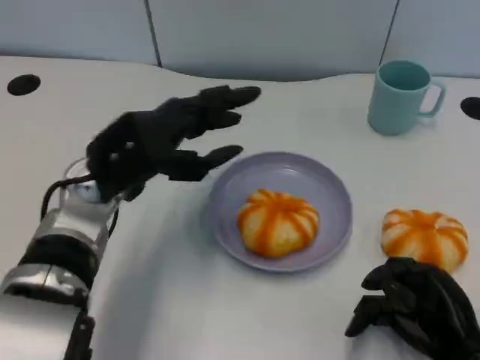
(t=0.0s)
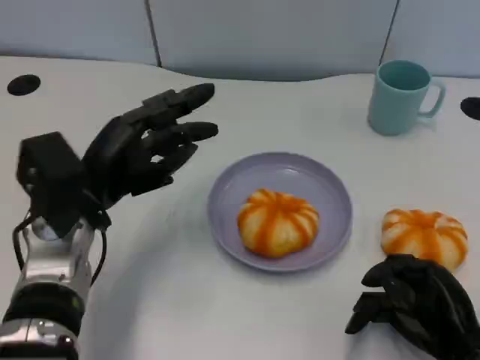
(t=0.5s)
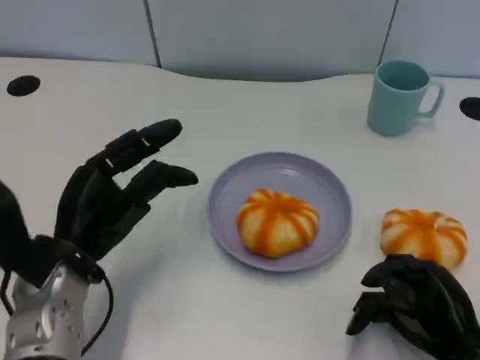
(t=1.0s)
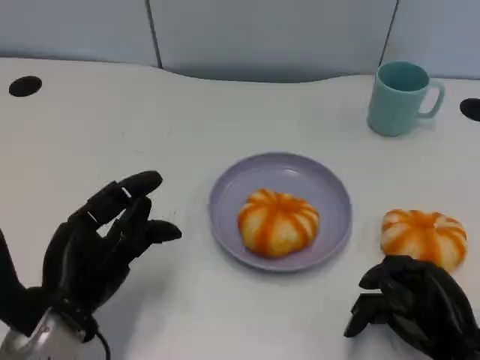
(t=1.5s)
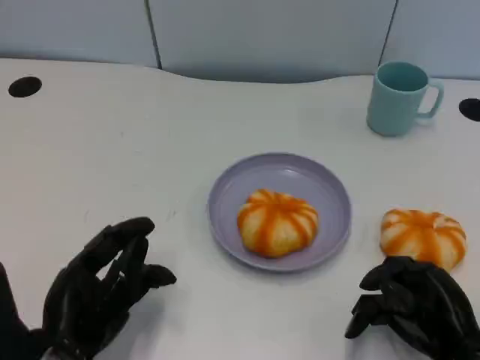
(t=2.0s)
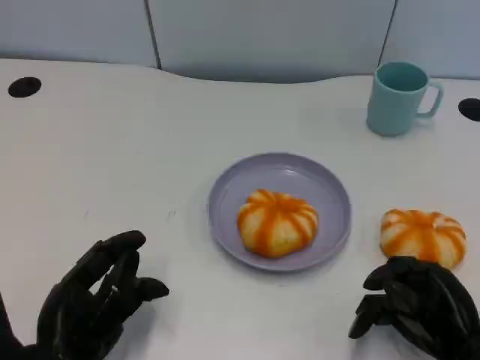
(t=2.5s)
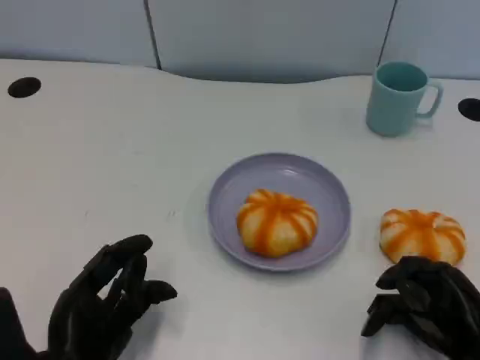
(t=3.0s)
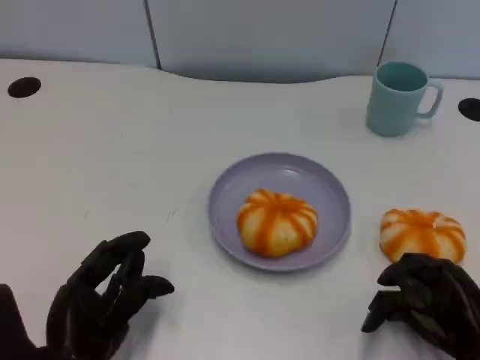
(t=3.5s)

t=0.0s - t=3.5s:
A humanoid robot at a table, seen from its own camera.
Task of the whole recording: Grasp the bread from the table and place it into the plate.
t=0.0s - t=2.0s: The left hand moves backward and downward, about 15 cm.
t=2.0s - t=3.5s: The hands move only a little.

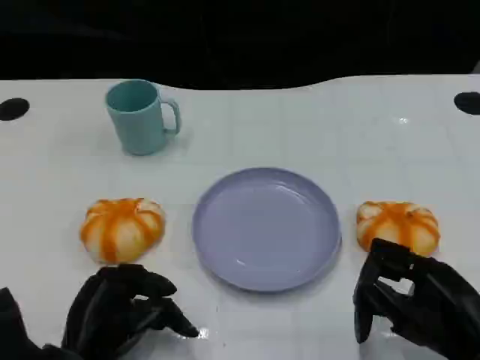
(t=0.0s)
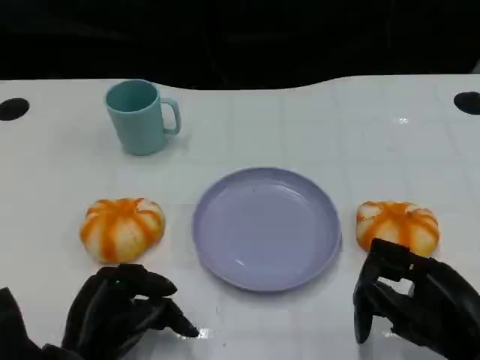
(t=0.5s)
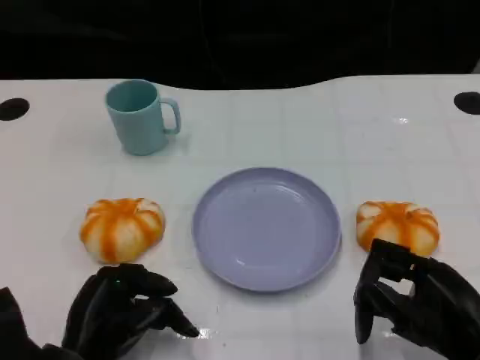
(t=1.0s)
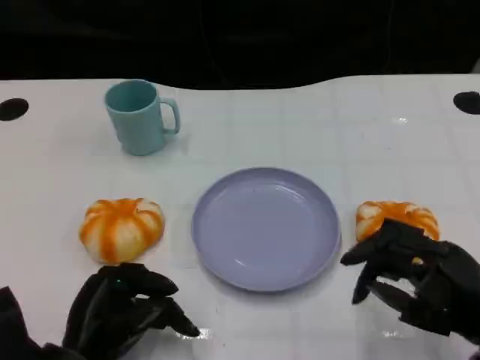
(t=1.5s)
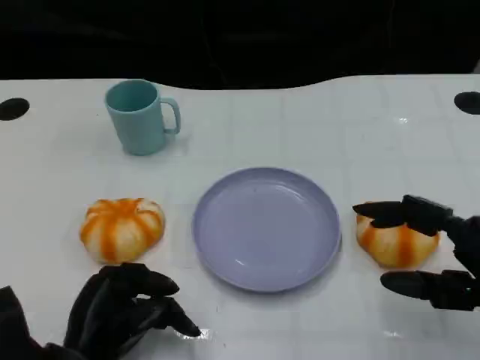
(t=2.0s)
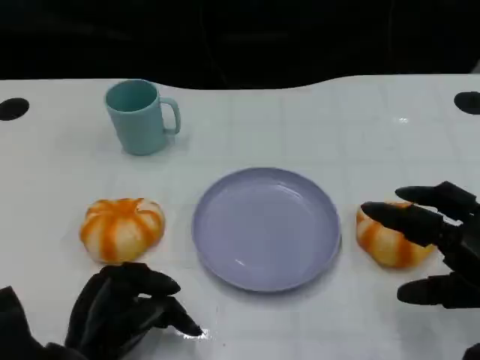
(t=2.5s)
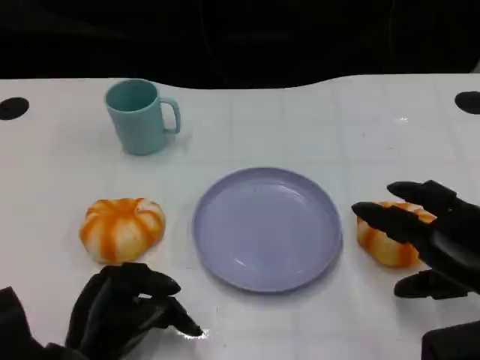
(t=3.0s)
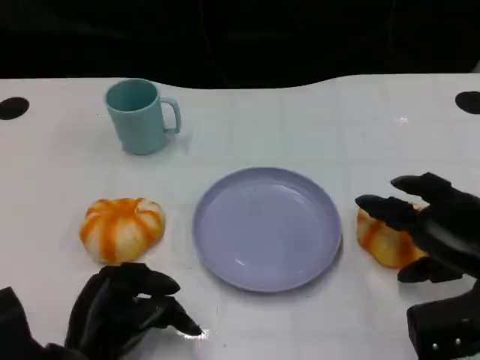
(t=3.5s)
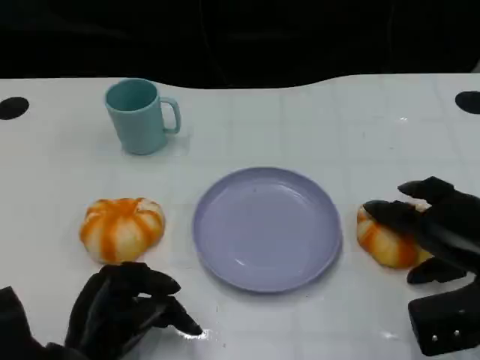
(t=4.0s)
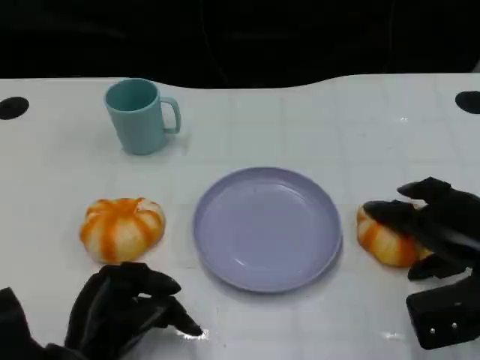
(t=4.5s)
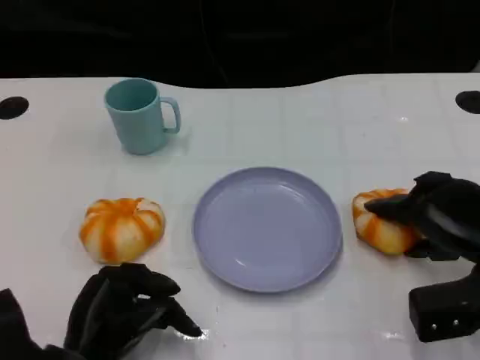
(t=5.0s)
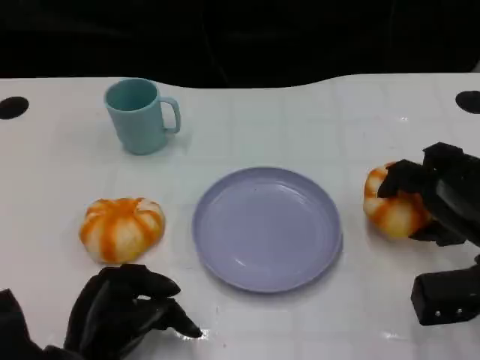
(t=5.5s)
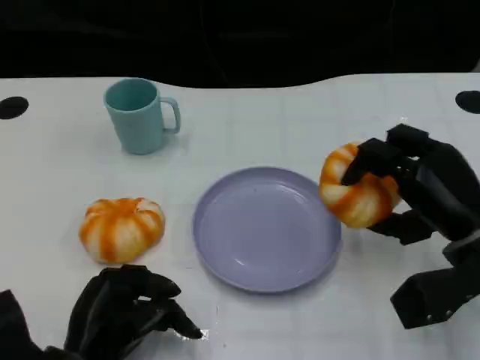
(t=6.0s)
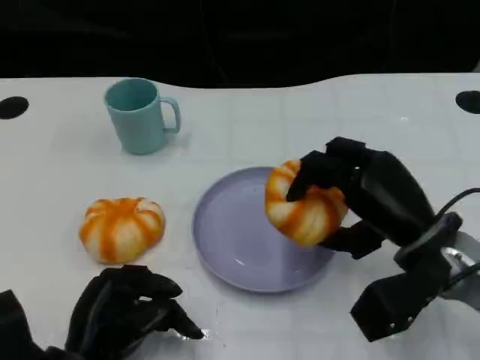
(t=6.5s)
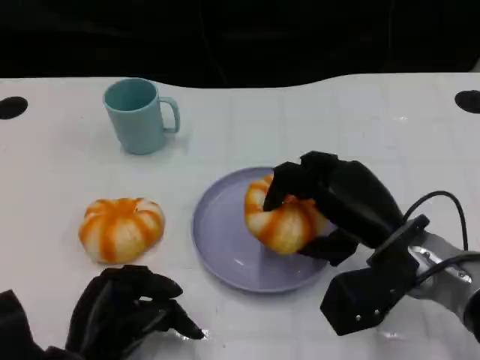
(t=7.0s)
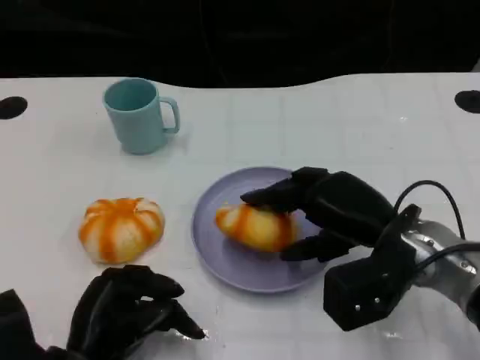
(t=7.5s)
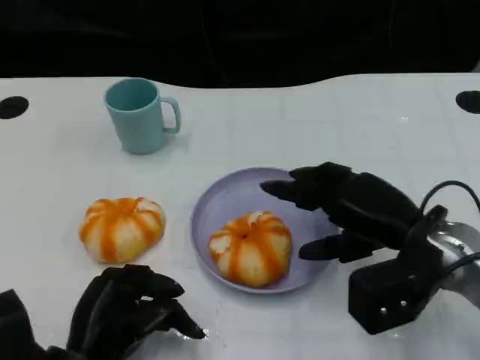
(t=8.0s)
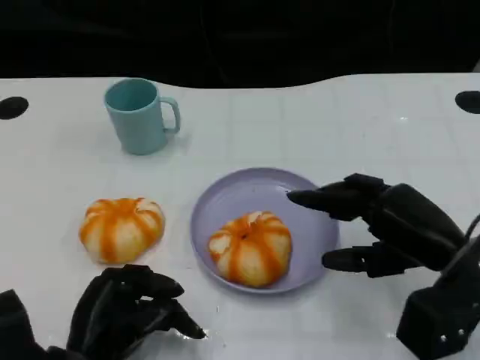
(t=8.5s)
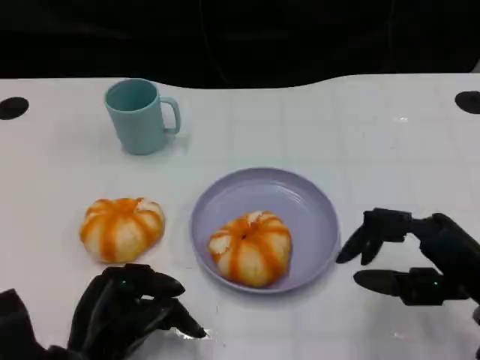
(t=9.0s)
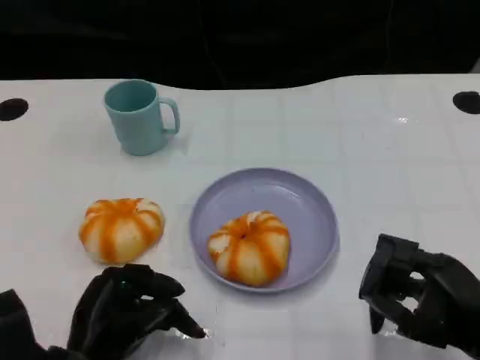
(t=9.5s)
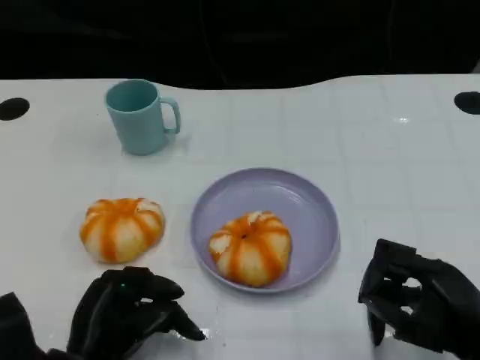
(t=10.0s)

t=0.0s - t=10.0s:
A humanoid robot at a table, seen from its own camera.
Task of the whole recording: Grasp the bread from the table and place it into the plate.
t=0.0s - t=2.0s: The right hand changes place by some 5 cm.
t=2.0s - t=4.0s: The right hand shifts approximately 5 cm forward.
t=8.0s - t=10.0s: The right hand is displaced backward and to the right by some 10 cm.

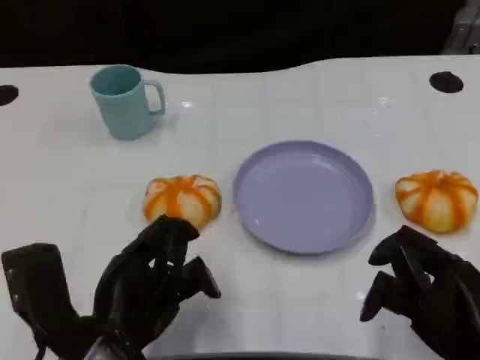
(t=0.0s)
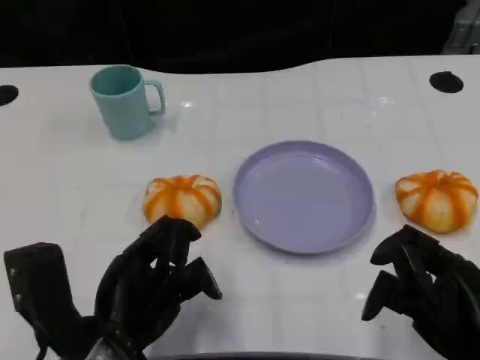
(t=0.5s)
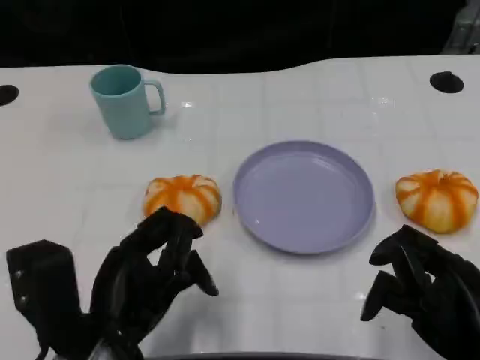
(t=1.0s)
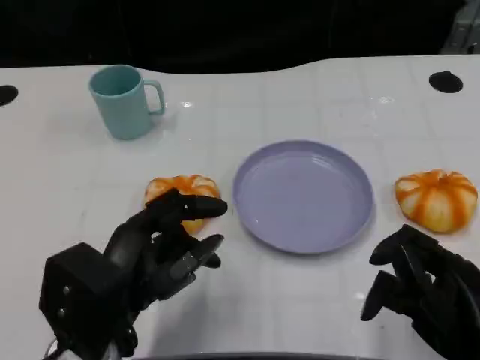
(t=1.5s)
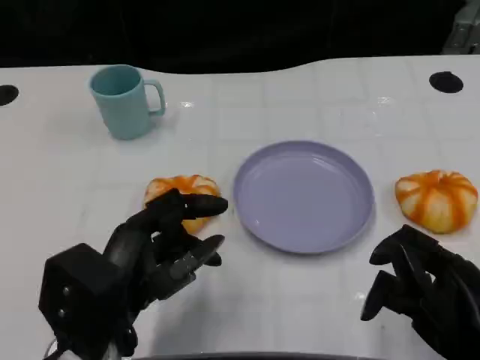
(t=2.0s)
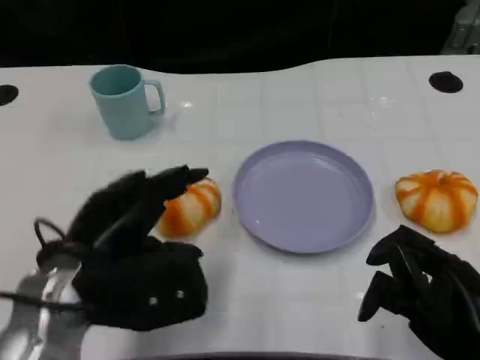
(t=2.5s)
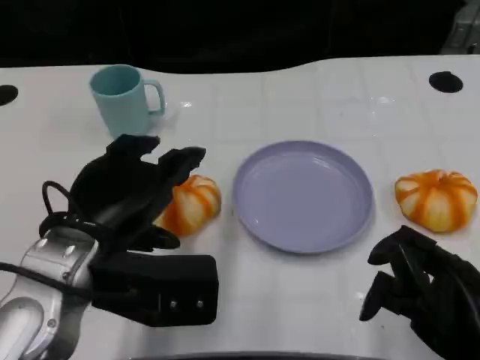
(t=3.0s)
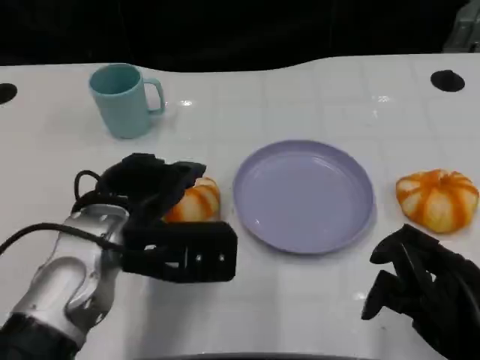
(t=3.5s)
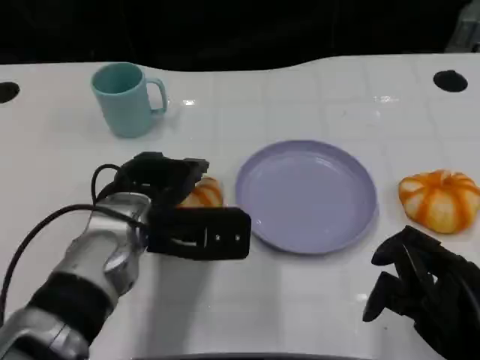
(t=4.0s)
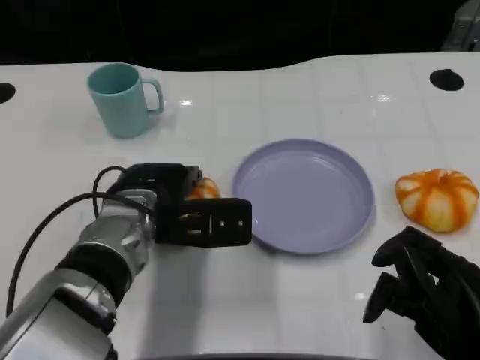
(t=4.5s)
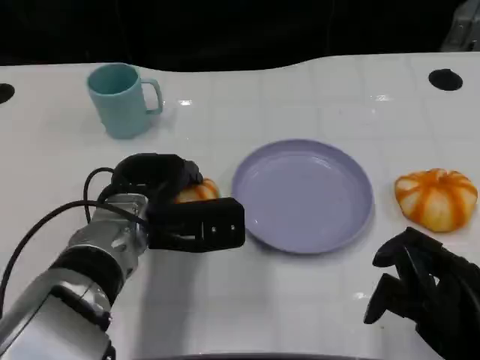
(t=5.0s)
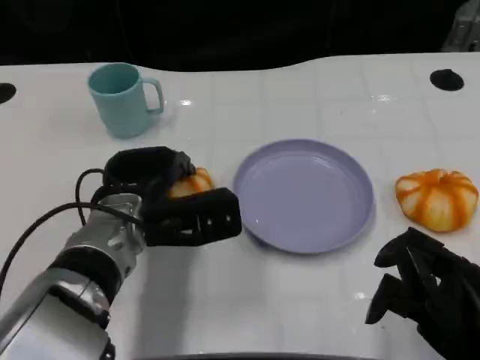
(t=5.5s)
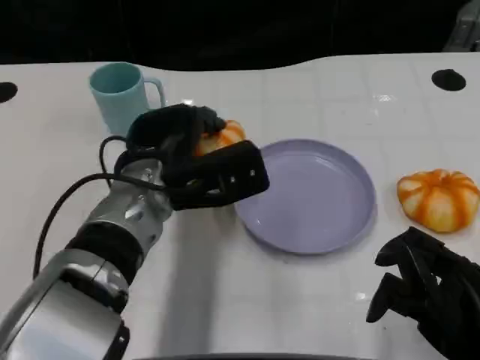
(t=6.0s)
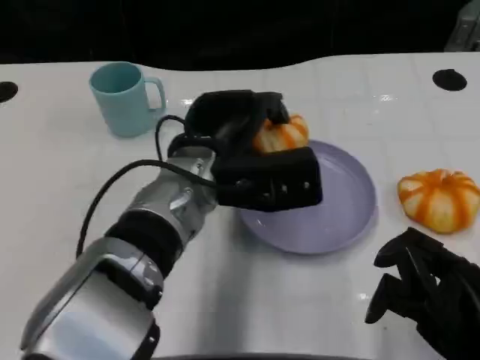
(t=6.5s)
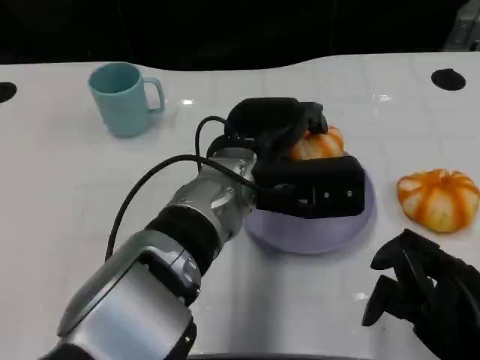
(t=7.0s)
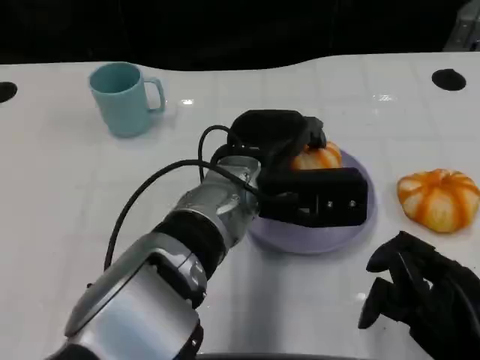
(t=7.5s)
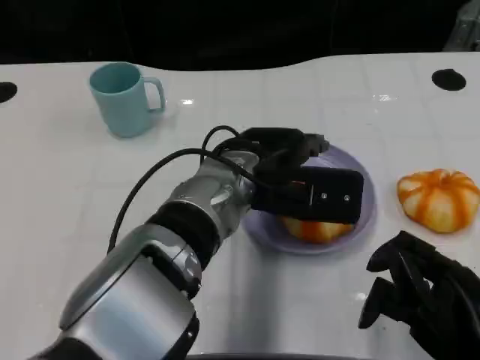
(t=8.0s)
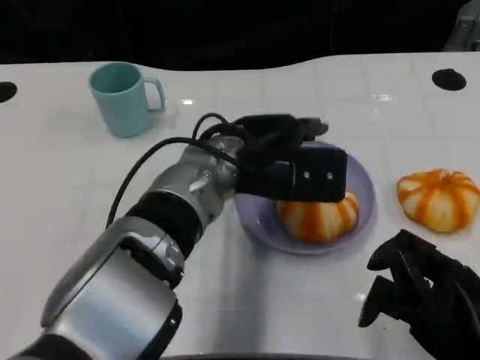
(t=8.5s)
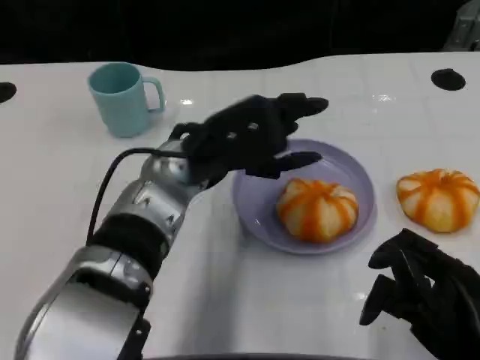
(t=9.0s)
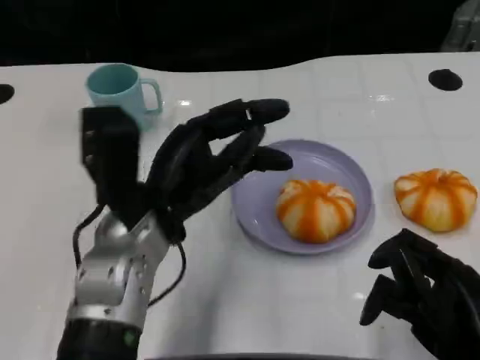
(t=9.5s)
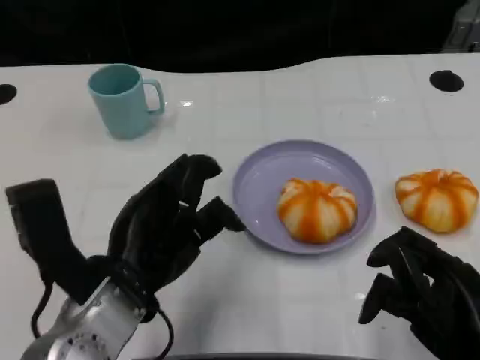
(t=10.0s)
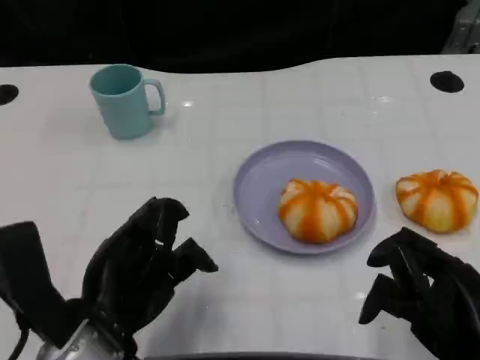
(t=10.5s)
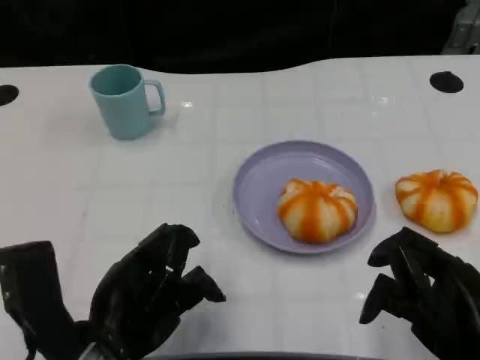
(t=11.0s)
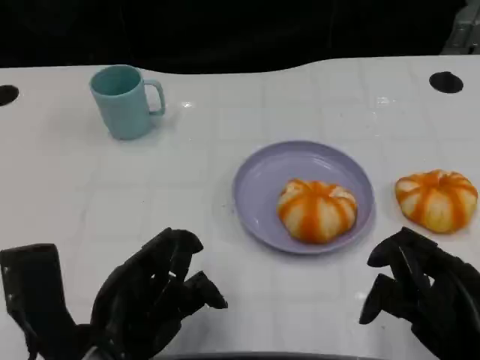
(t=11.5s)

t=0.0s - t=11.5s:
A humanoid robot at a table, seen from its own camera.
Task of the whole recording: Grasp the bread from the table and place it into the plate.
t=2.0s - t=4.0s: The left hand shifts approximately 10 cm forward.
t=6.0s - t=7.5s: The left hand is displaced to the right by roughly 10 cm.
t=7.5s - t=9.5s: The left hand is displaced to the left by approximately 10 cm.
t=9.5s - t=11.5s: The left hand goes some 10 cm backward.

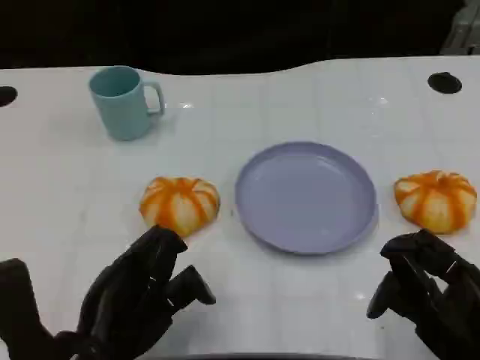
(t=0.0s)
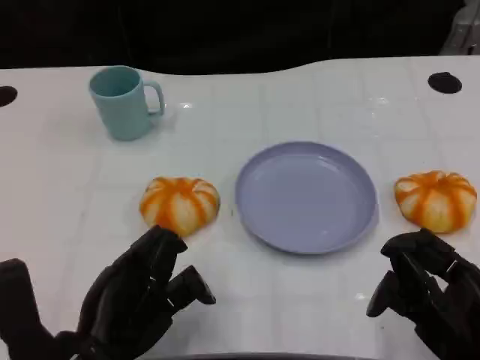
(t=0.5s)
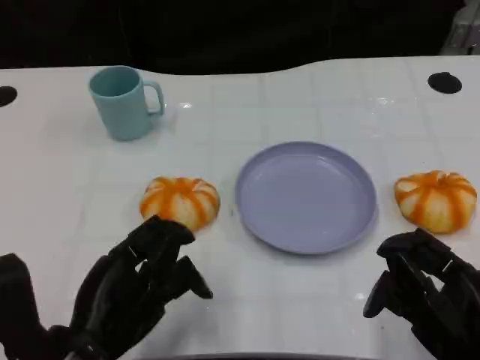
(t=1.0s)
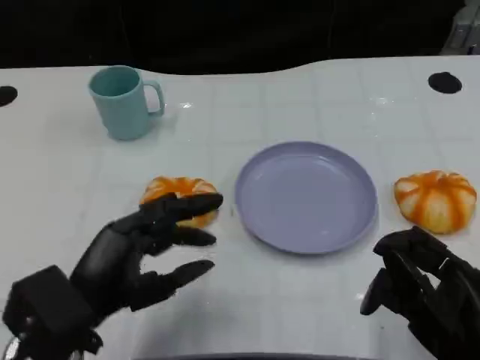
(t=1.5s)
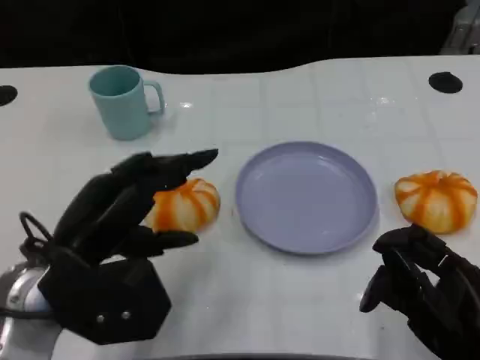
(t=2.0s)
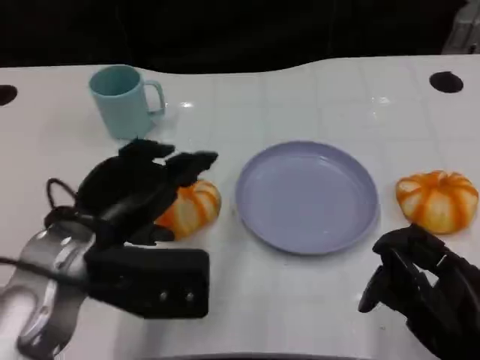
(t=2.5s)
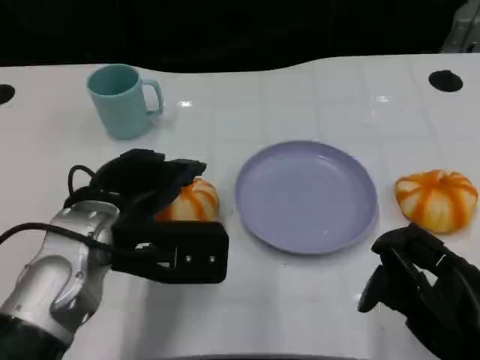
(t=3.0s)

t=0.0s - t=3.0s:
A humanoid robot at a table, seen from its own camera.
Task of the whole recording: Grasp the bread from the table and place it into the plate.
t=1.5s - t=3.0s: The left hand travels forward by about 10 cm.
